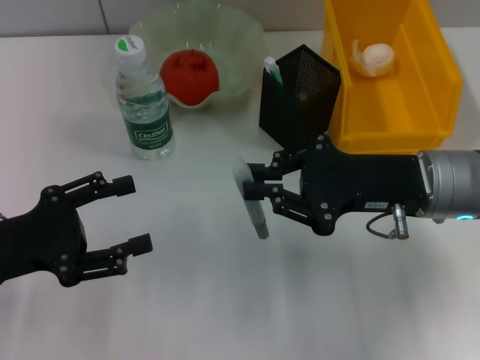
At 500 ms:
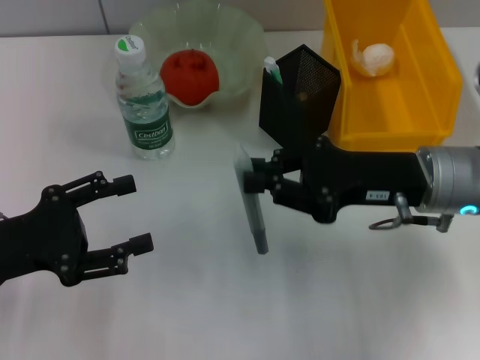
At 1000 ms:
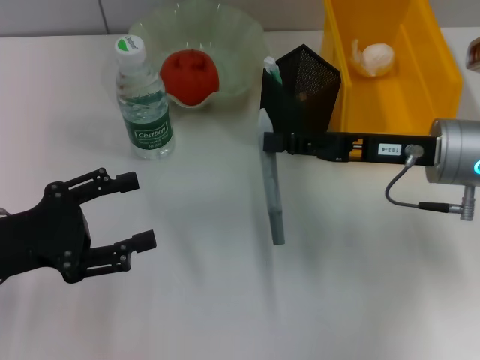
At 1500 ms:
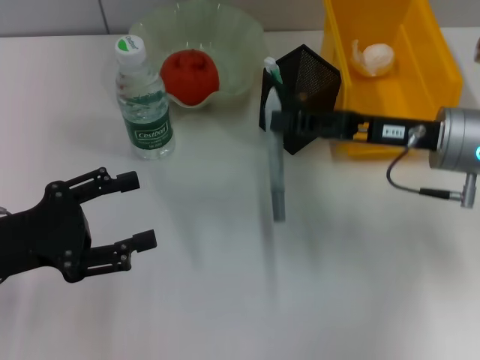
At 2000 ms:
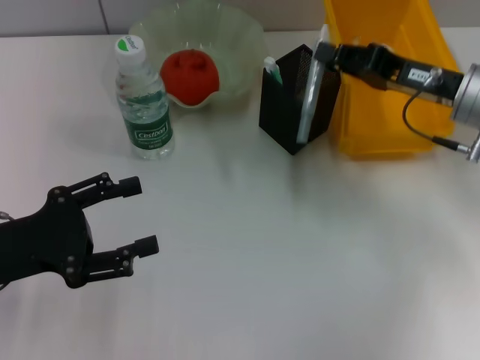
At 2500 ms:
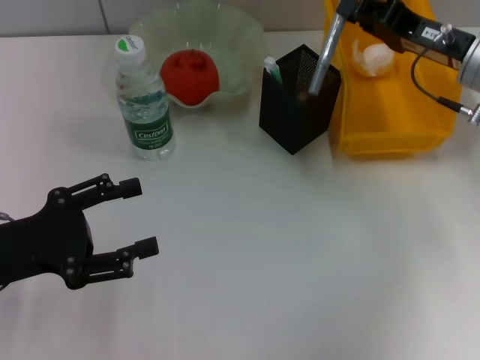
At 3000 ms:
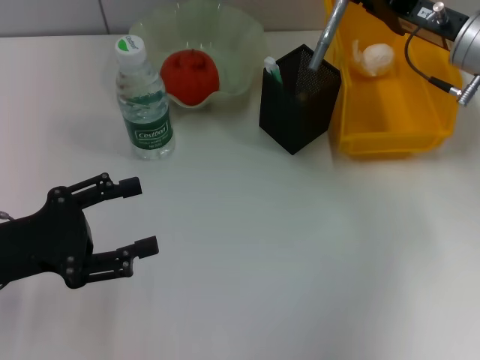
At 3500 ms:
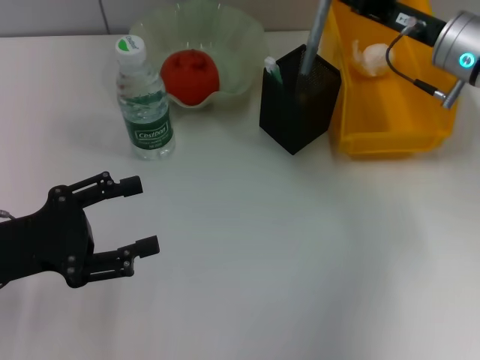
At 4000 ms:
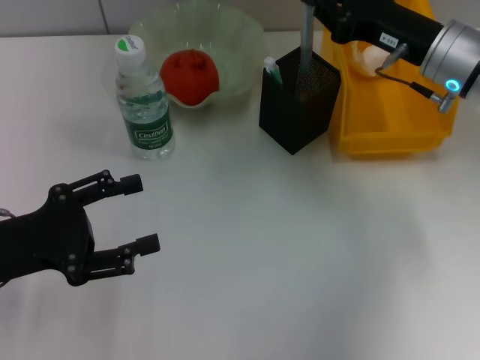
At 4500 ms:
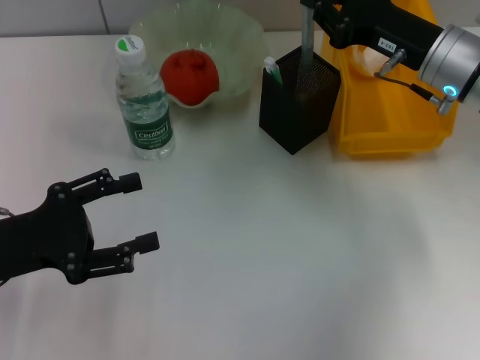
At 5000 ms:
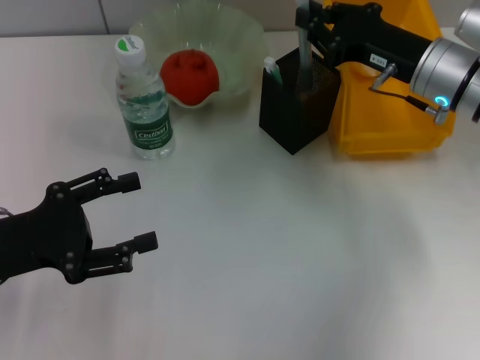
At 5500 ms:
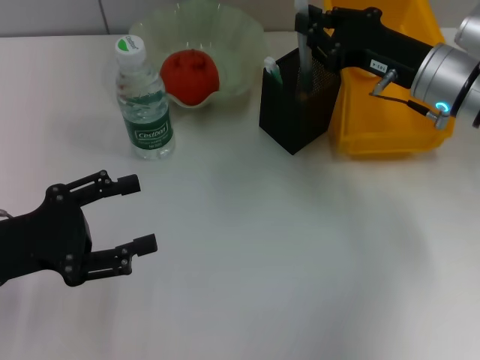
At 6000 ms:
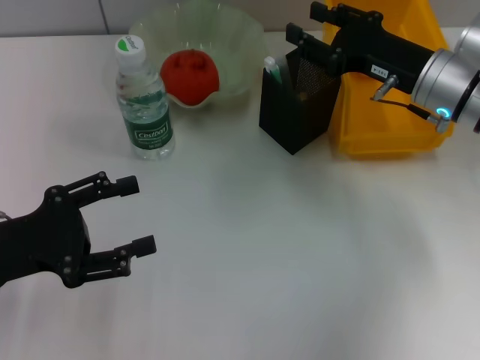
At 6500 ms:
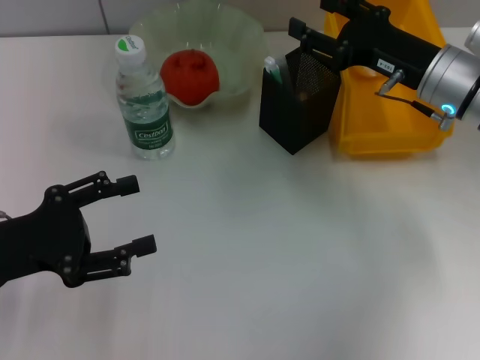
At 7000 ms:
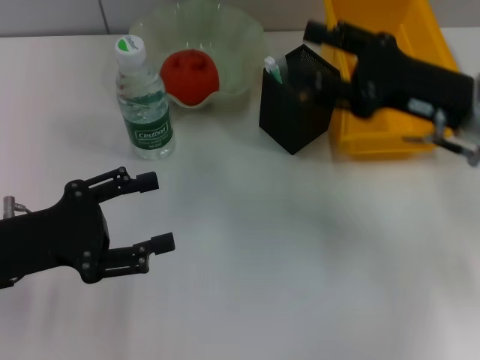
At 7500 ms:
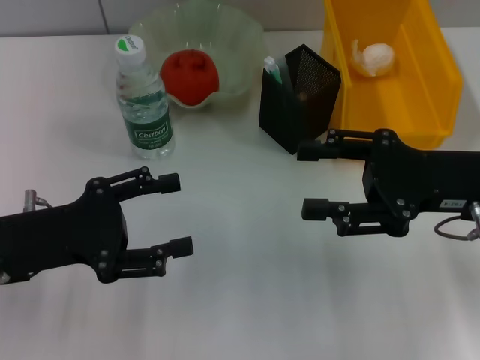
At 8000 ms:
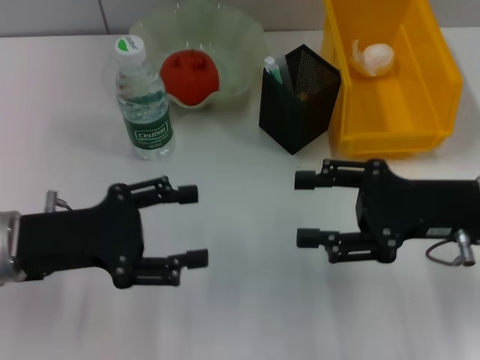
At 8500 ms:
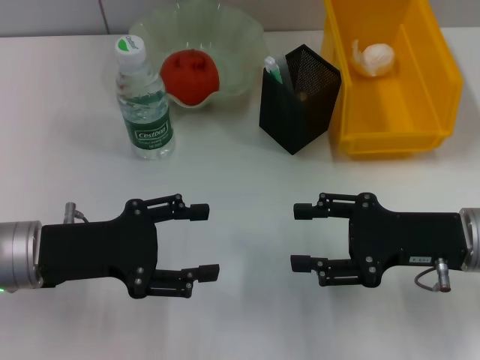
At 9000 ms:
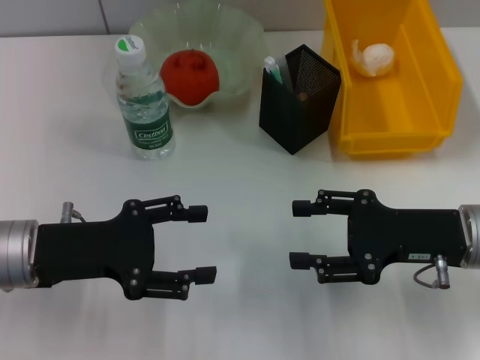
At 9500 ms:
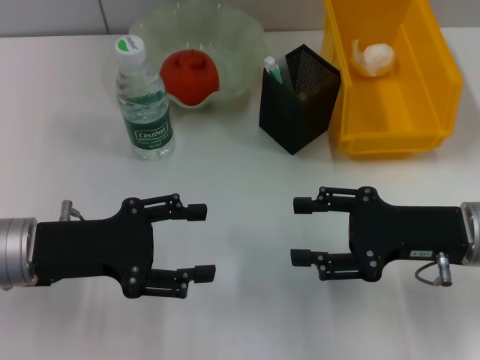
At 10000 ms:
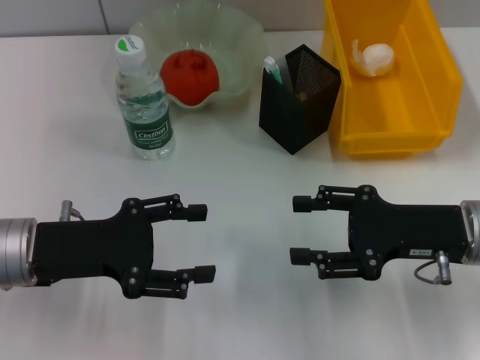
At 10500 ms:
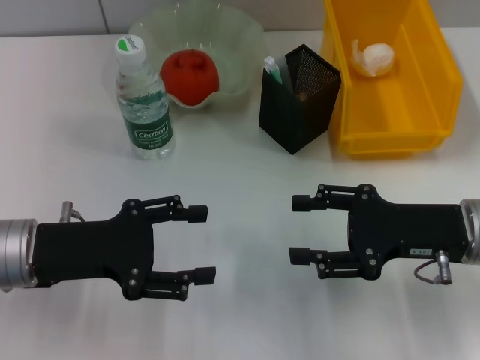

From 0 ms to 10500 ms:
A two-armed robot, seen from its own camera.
Step, from 0 ms to 5500 ms: Place the gray glue into the pen holder with the right hand.
From 0 ms to 2000 ms: The right gripper is displaced forward and to the right by roughly 10 cm.
From 4000 ms to 6500 ms: The right gripper opens up.
From 6500 ms to 8500 ms: The left gripper shifts approximately 5 cm to the right. Meanwhile the right gripper heads backward, covering approximately 10 cm.
From 8500 ms to 10500 ms: Neither gripper changes place.
